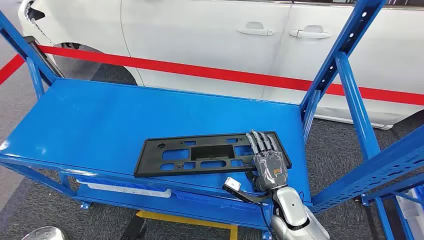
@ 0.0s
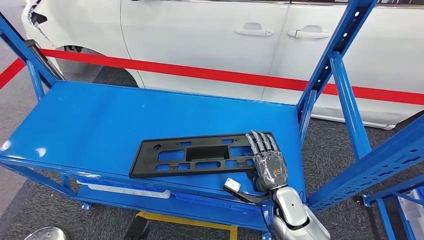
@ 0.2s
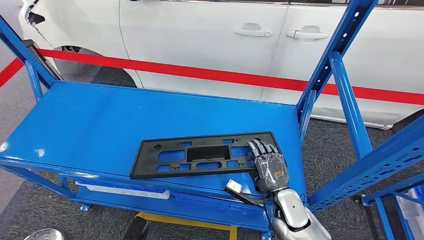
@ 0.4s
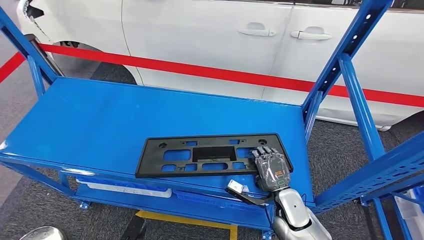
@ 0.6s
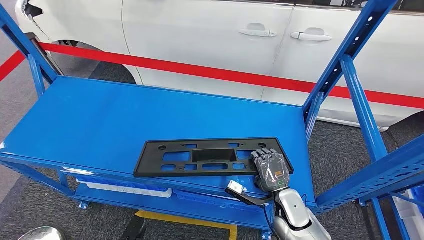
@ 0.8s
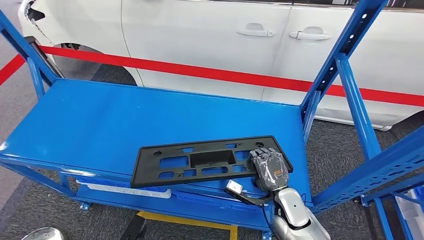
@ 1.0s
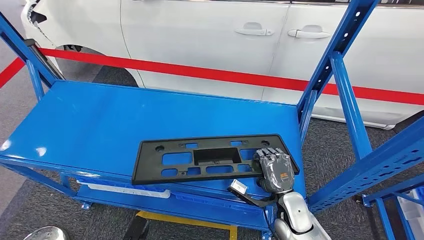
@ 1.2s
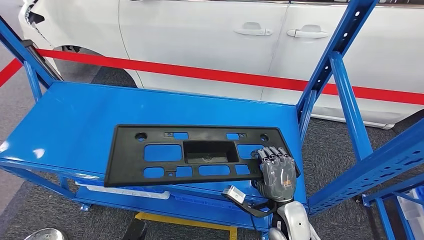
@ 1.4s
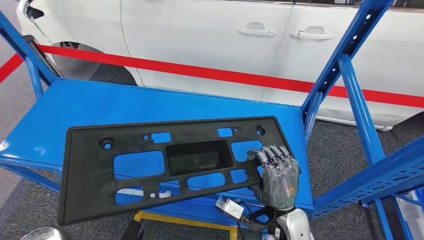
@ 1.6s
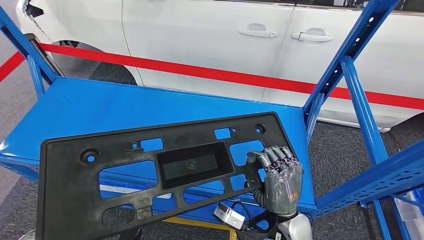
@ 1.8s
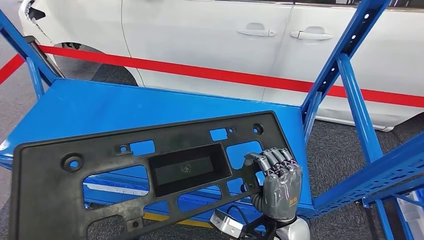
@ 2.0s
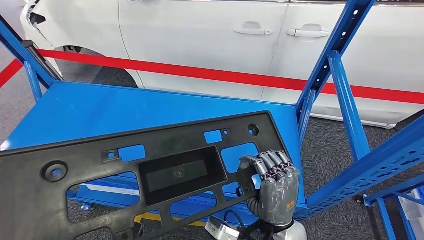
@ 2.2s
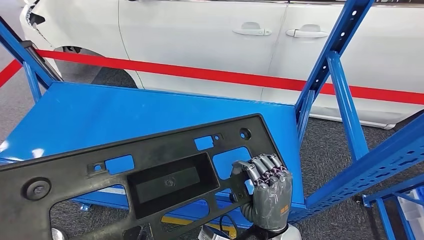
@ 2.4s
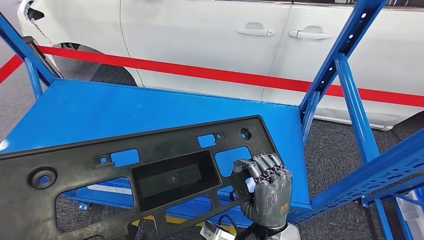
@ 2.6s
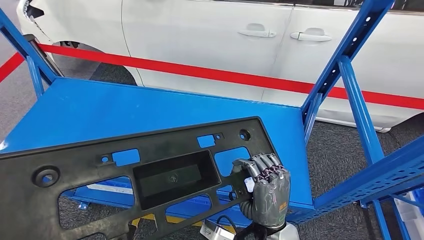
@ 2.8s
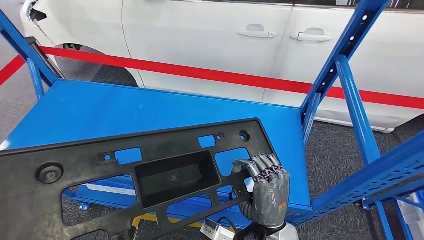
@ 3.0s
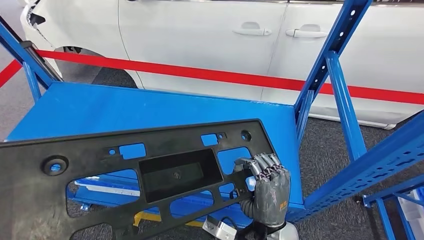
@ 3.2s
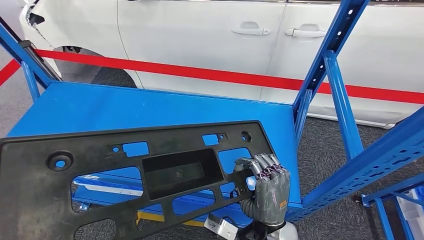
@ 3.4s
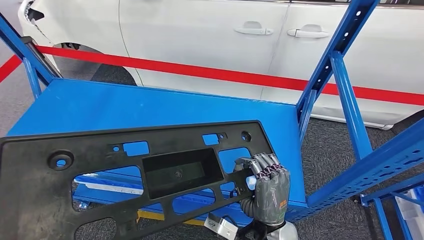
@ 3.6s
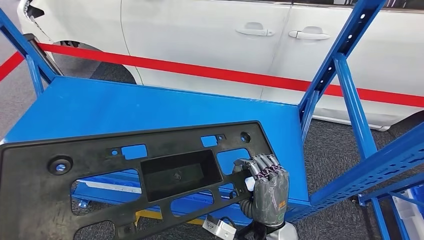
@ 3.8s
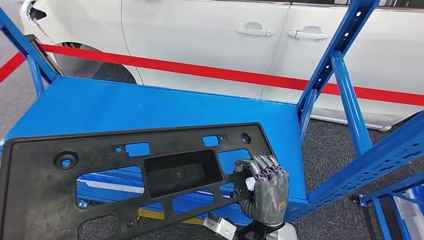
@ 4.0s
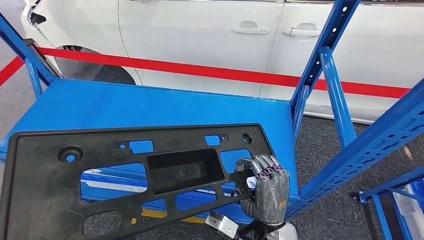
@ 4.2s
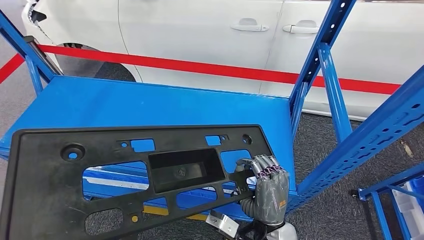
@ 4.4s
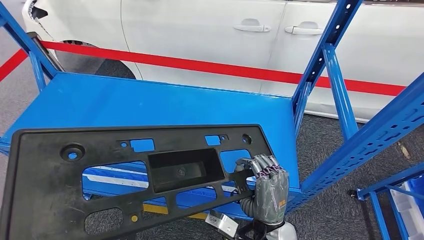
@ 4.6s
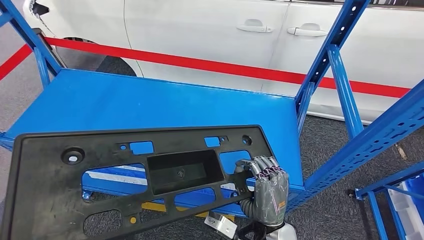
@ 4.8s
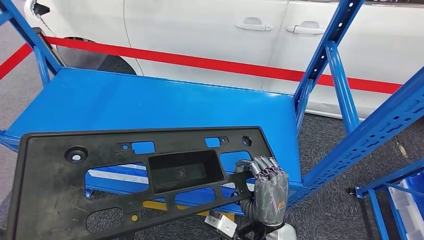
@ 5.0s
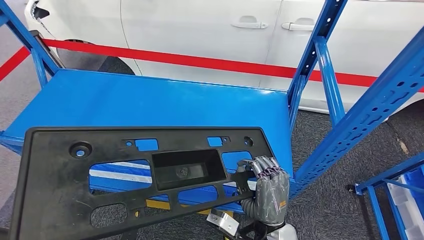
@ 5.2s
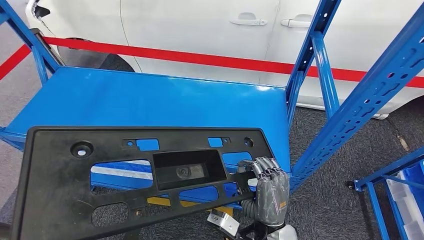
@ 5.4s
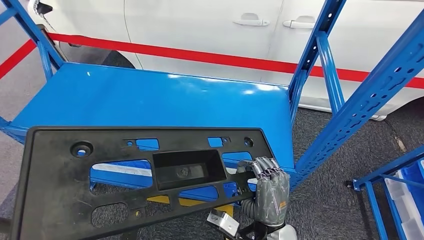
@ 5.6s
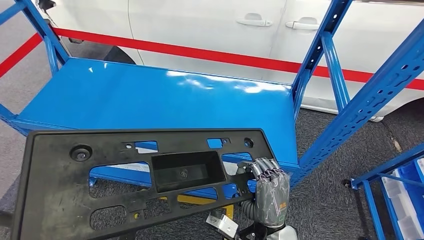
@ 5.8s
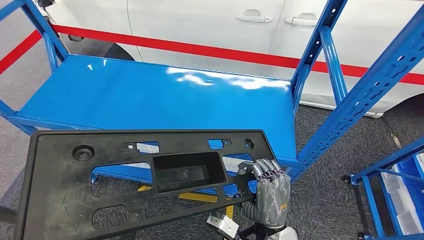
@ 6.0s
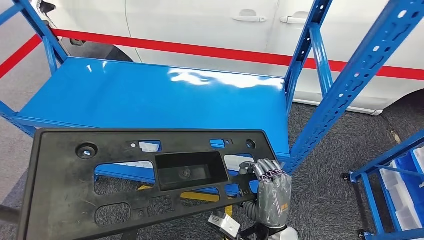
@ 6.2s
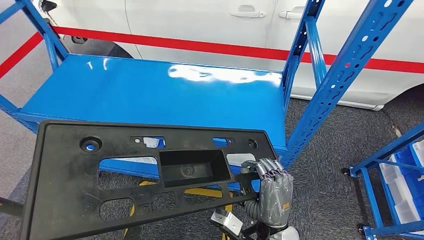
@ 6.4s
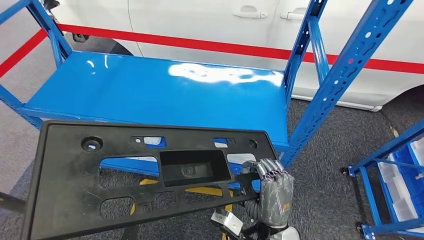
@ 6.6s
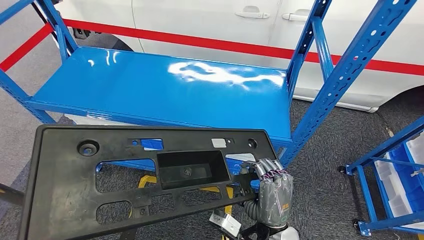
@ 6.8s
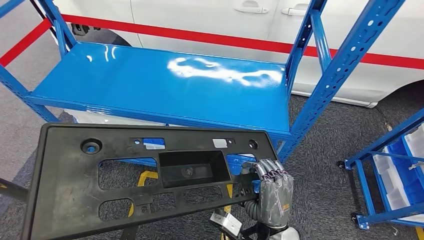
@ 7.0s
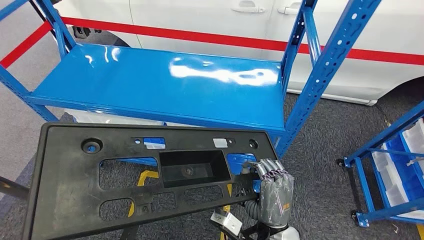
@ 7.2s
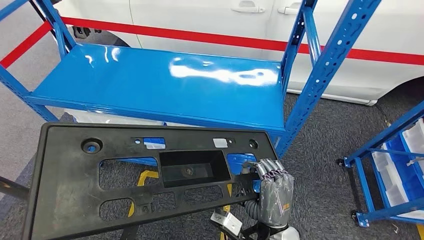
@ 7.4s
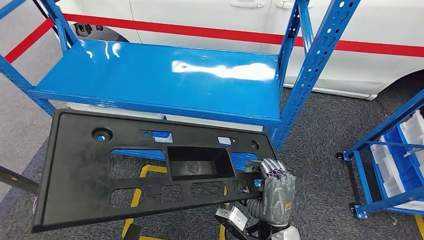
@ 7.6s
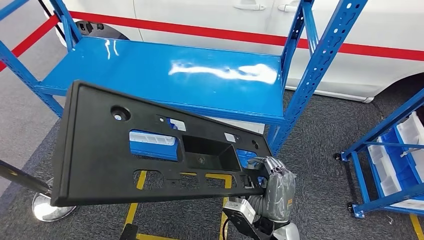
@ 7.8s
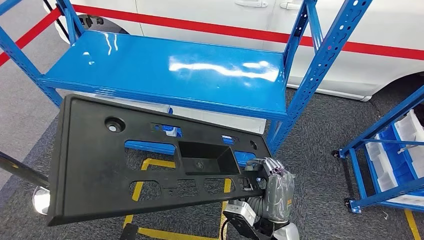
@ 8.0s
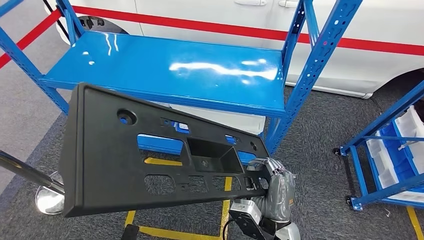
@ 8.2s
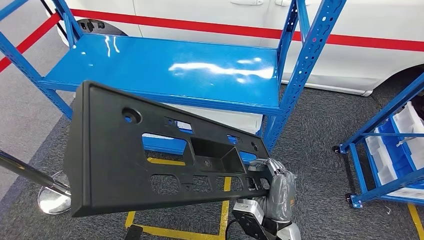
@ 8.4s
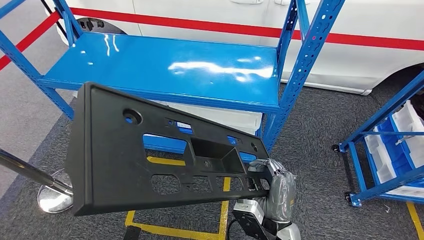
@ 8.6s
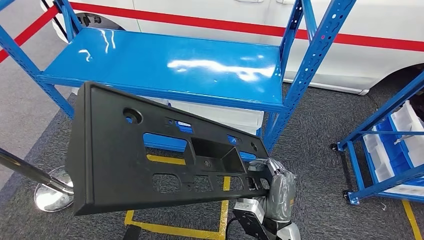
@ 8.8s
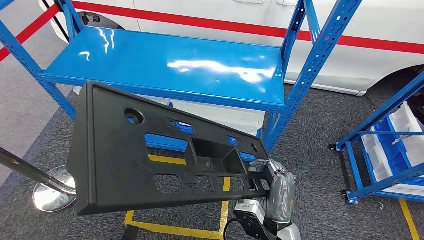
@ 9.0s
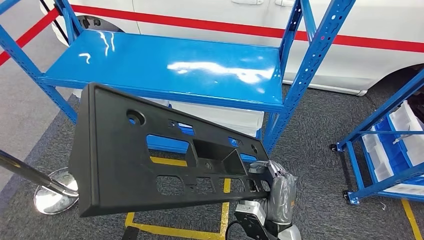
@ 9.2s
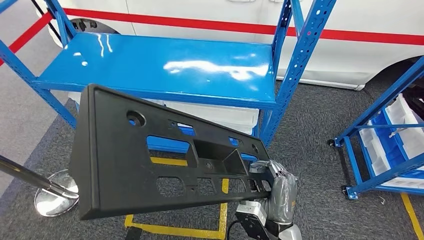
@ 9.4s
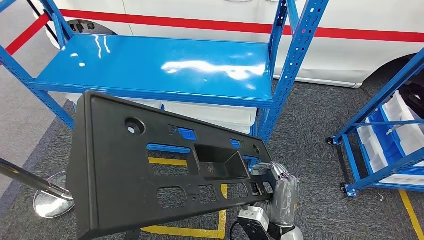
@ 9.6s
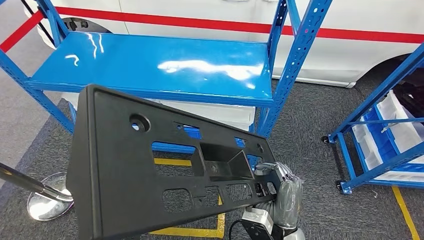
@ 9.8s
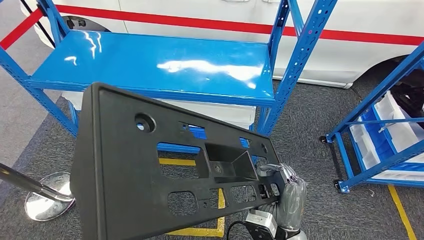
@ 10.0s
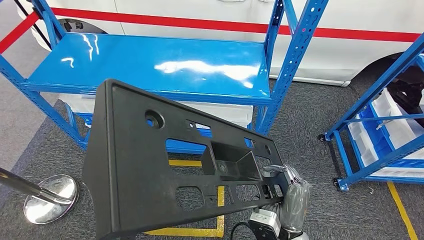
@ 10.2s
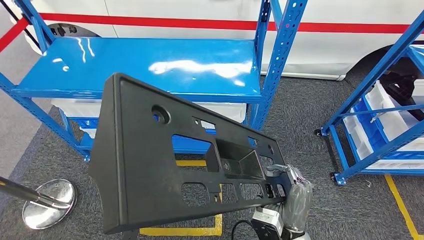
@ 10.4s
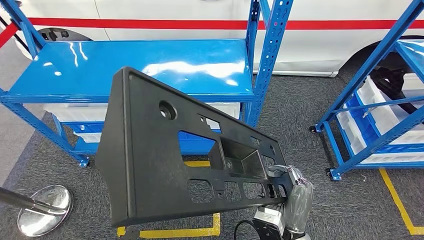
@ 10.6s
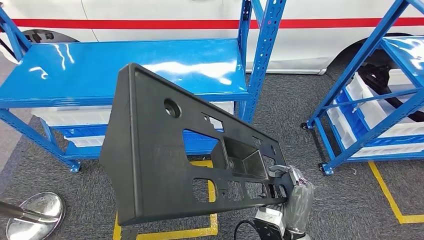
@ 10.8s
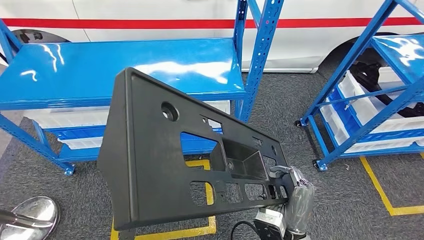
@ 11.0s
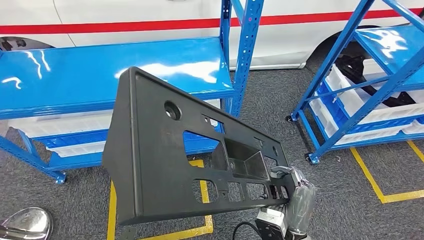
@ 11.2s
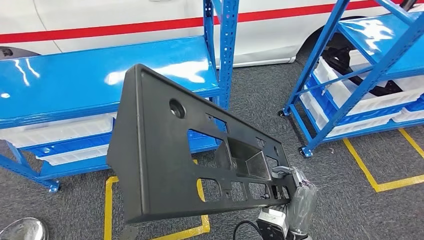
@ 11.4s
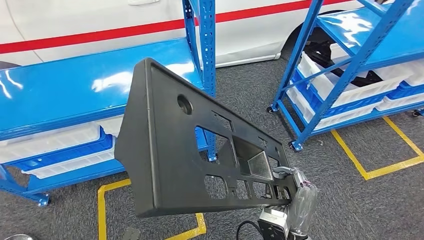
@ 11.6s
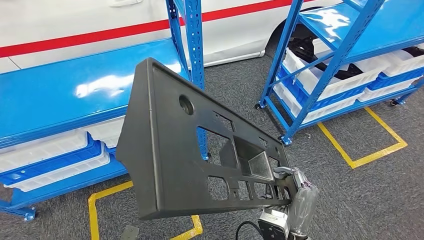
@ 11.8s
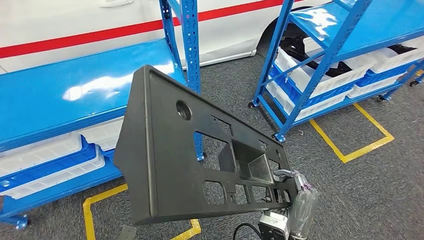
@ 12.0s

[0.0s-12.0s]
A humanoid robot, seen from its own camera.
Step, 0.0s to 6.2s: Pick up the large material from the shelf.

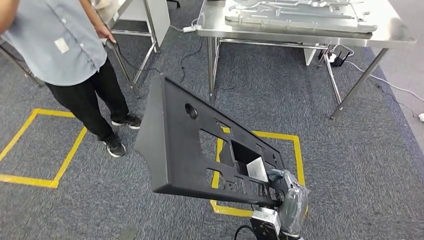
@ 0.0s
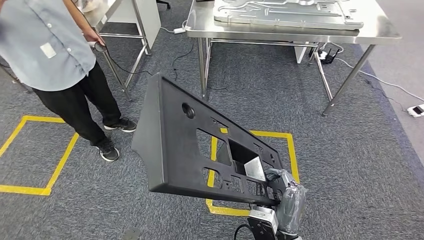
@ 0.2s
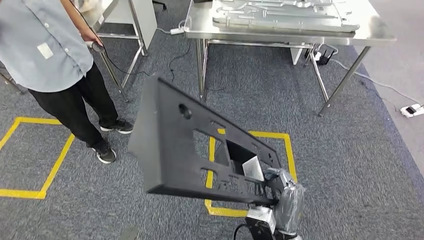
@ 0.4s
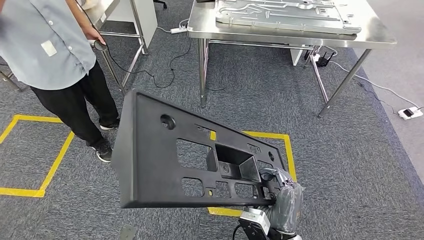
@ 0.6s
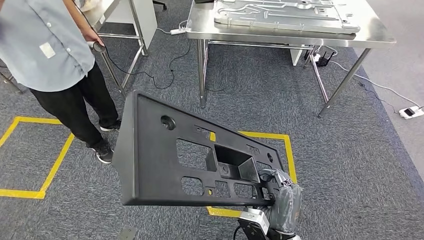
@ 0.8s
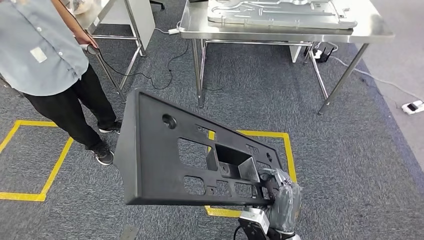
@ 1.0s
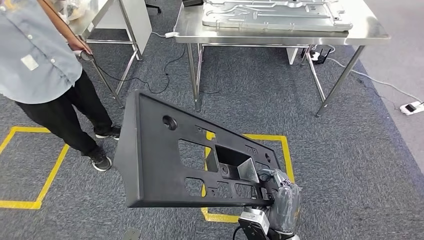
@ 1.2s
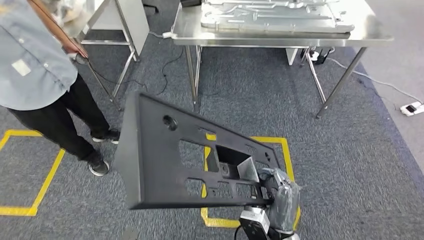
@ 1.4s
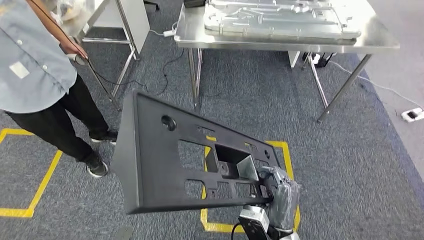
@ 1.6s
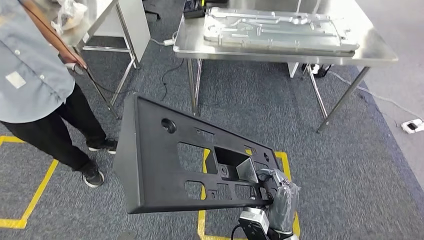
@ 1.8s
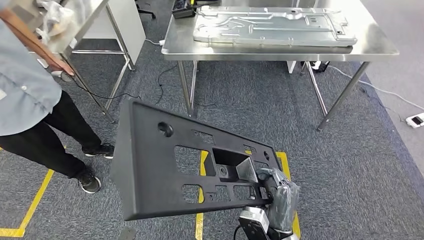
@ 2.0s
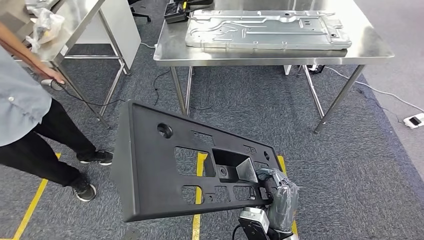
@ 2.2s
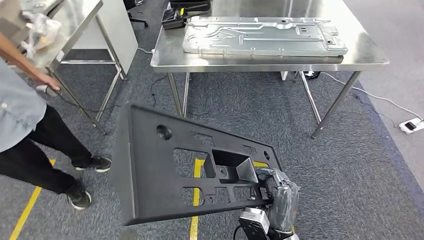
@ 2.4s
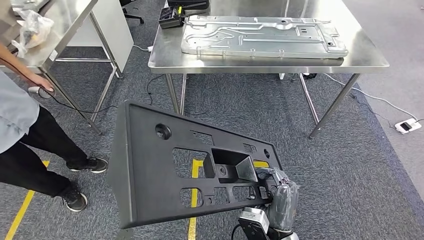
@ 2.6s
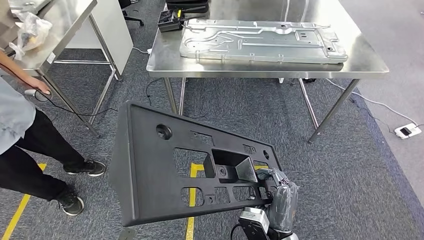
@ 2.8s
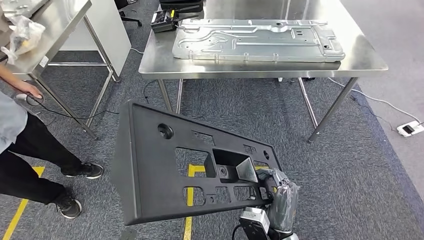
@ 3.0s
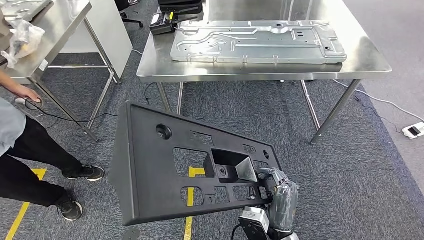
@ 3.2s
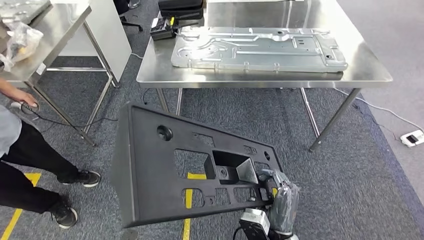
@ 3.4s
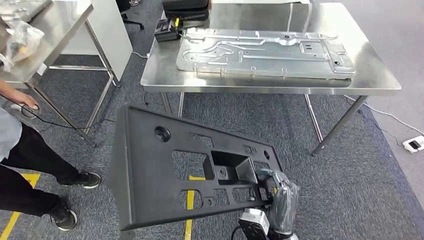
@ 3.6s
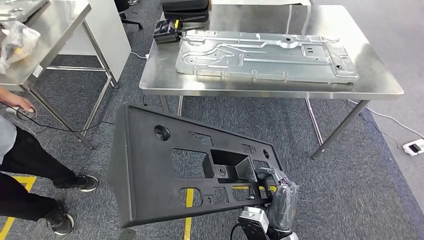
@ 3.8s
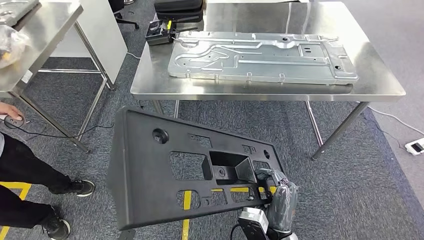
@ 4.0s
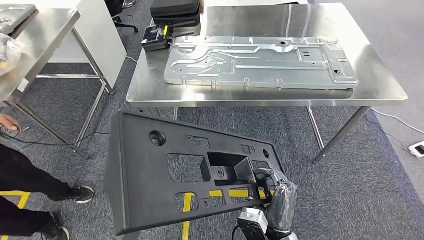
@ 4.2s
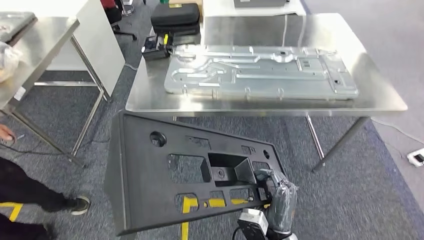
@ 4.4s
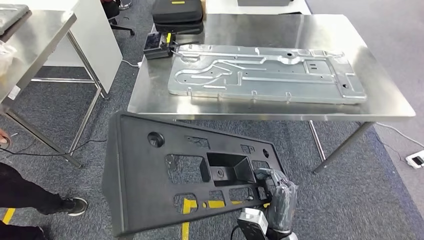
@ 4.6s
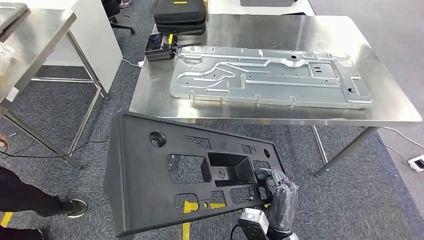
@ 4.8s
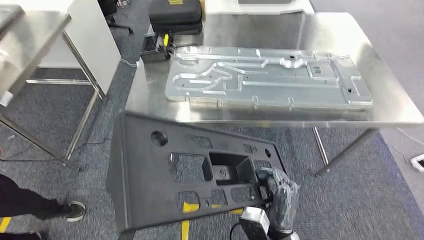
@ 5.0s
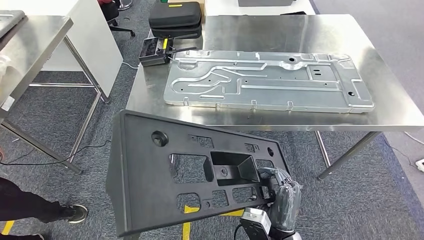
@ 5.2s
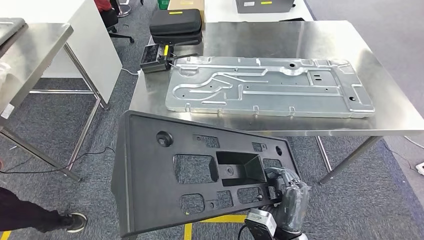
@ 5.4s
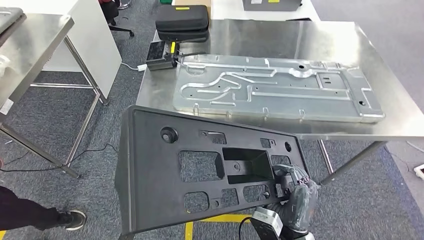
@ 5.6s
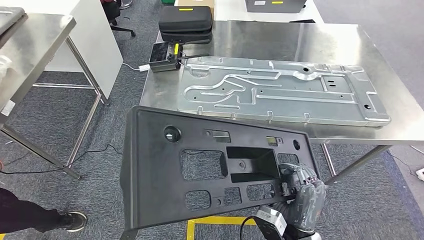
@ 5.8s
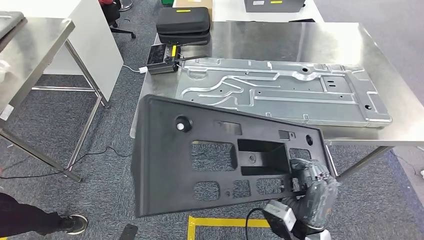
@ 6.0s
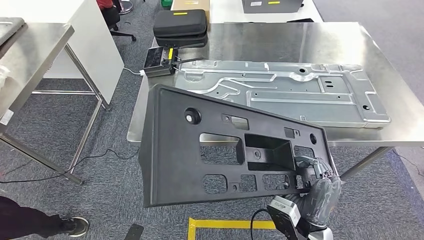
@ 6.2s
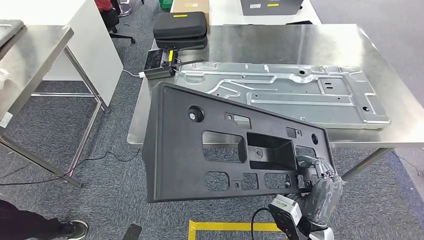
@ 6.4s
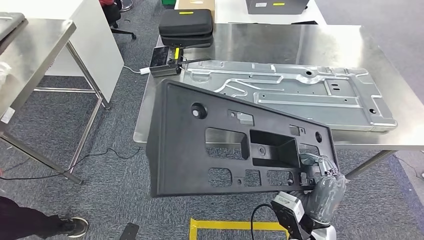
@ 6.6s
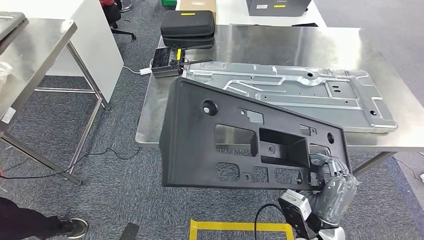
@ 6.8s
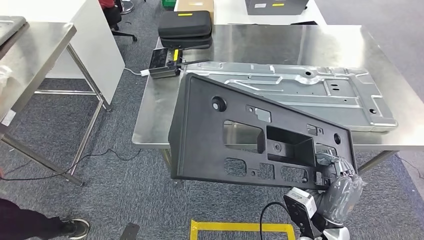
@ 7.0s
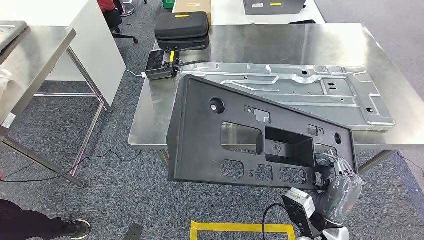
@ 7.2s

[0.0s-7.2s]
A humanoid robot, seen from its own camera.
Step, 0.0s to 6.6s: Move the large material to the workbench.
